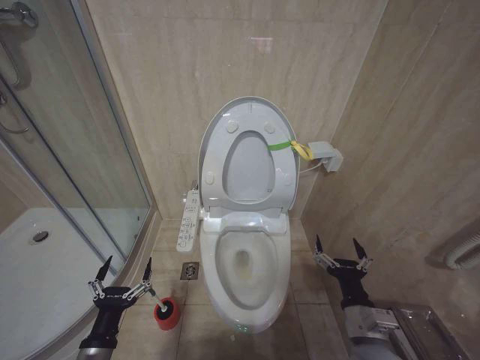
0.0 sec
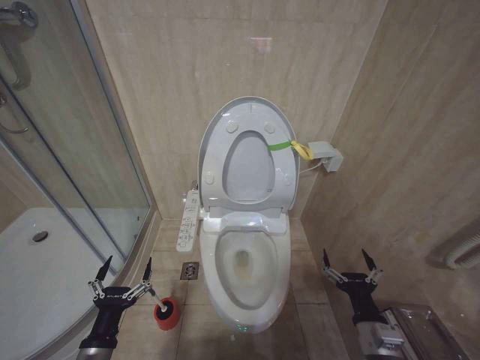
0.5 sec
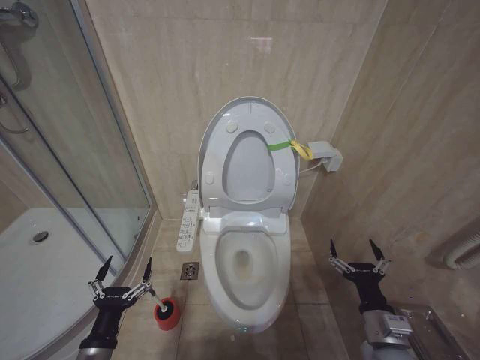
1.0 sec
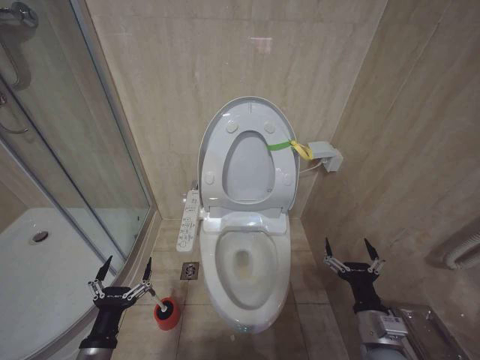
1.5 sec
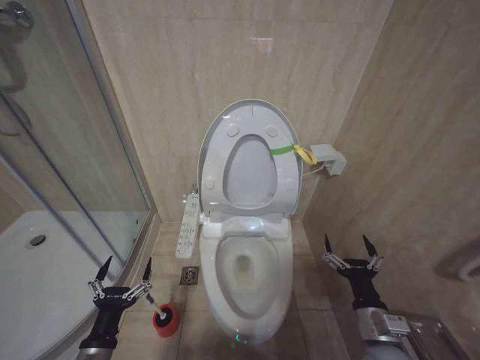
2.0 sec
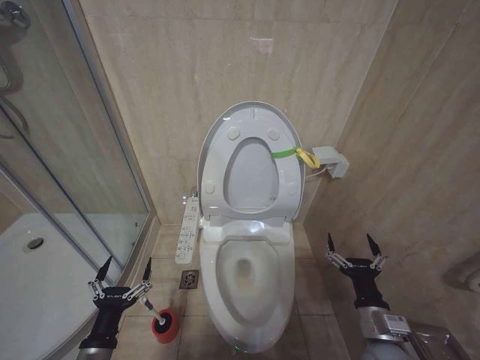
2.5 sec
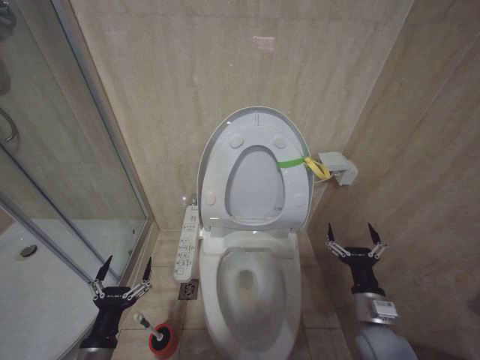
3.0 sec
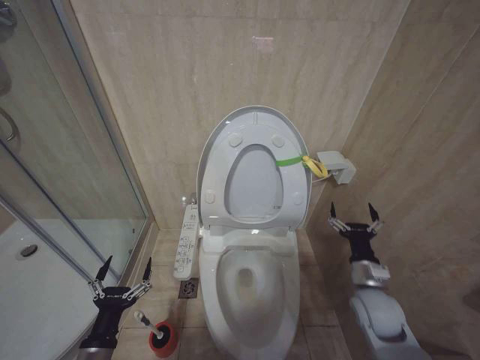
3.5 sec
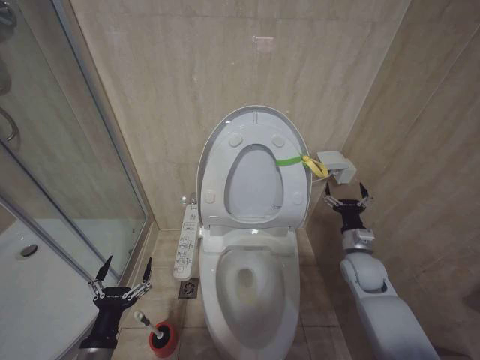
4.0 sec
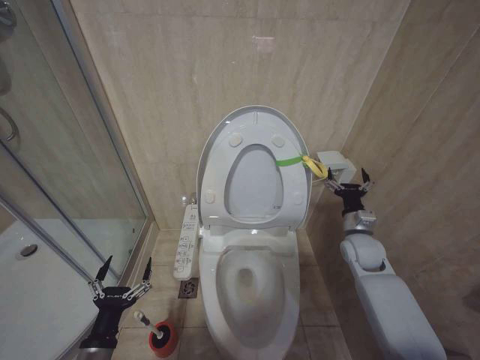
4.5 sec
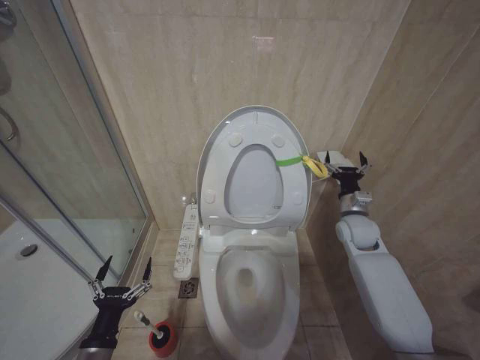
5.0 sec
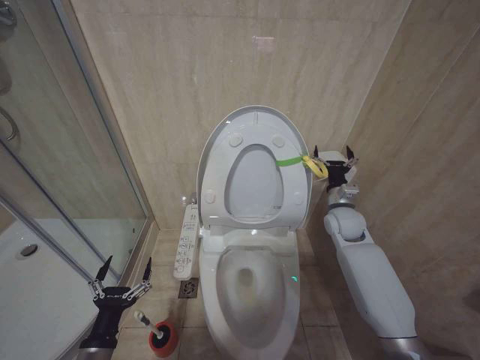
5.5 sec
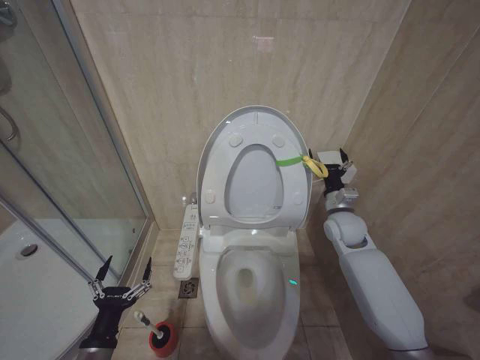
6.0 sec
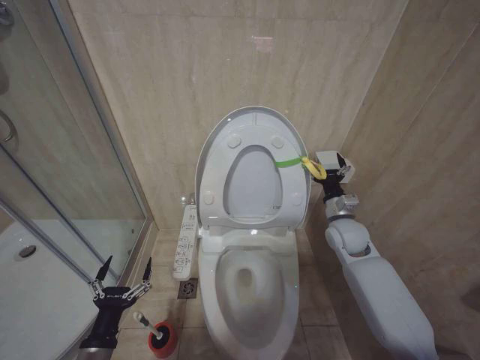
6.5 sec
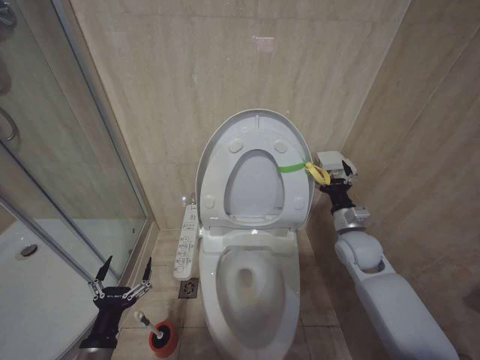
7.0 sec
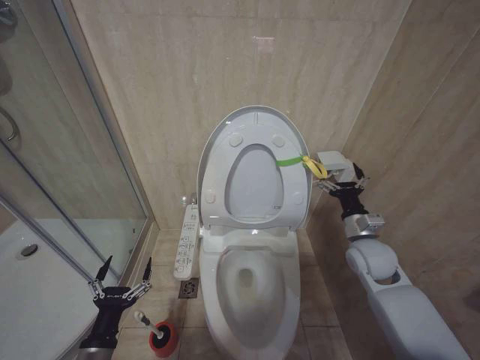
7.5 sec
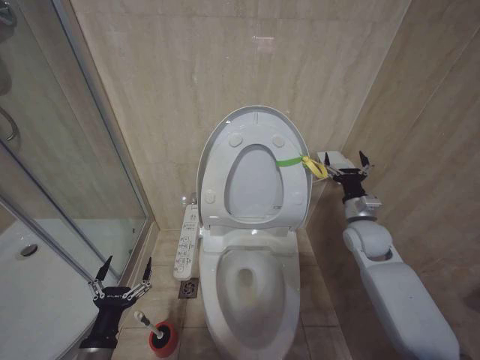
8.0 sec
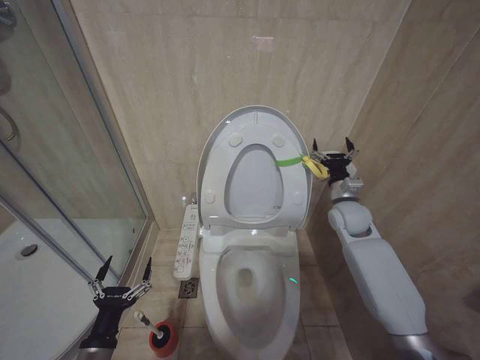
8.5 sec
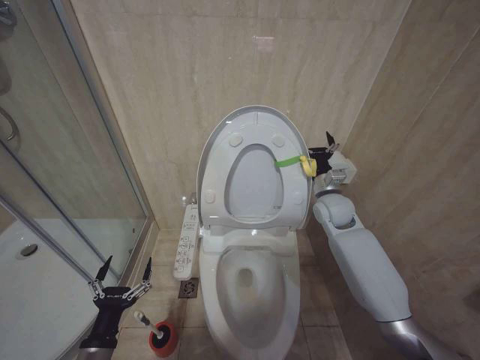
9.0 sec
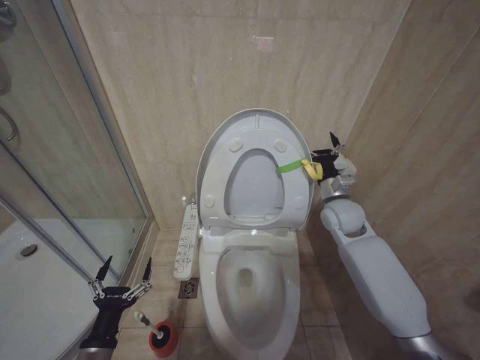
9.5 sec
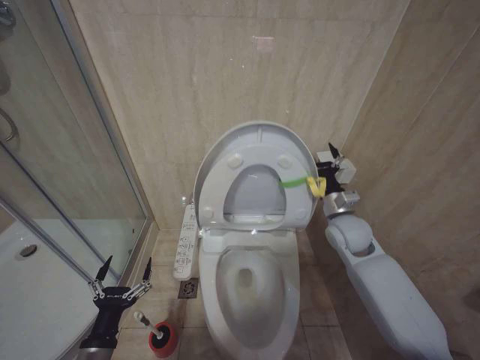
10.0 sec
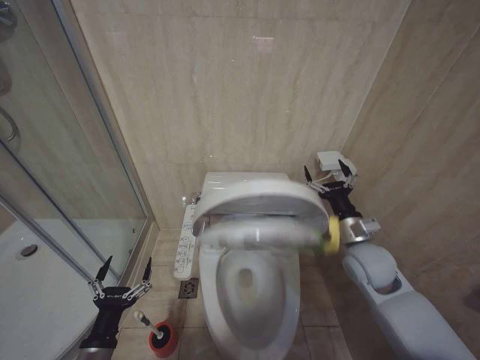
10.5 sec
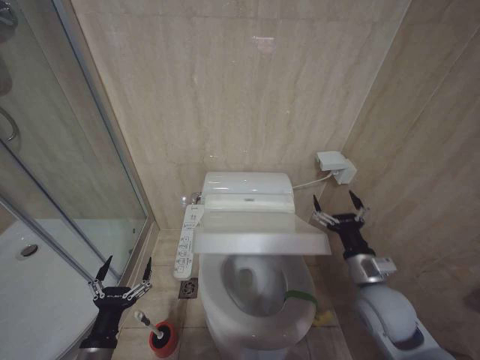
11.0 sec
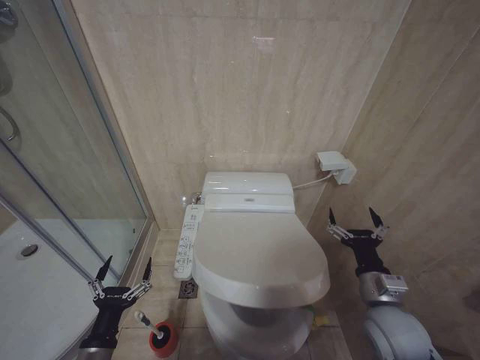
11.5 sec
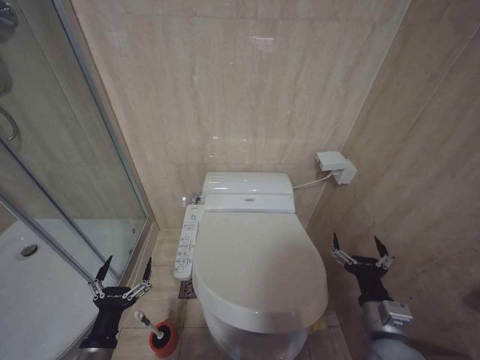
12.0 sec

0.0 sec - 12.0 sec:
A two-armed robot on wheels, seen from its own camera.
Task of the whole recording: Open the toilet lid, clean the toilet bowl with a toilet brush, close the toilet lid, and flush.
0.0 sec - 2.0 sec: The grippers make only small movements.
2.0 sec - 4.0 sec: The right gripper moves forward, approximately 20 cm.
4.0 sec - 6.0 sec: The right gripper goes some 15 cm forward and upward.
8.0 sec - 10.0 sec: The right gripper moves to the left, approximately 5 cm, and reaches some 10 cm forward, then returns.
10.0 sec - 12.0 sec: The right gripper goes roughly 25 cm backward and downward.

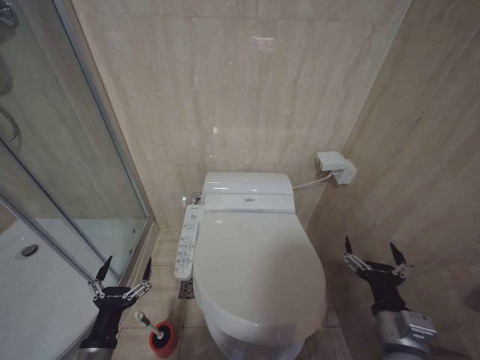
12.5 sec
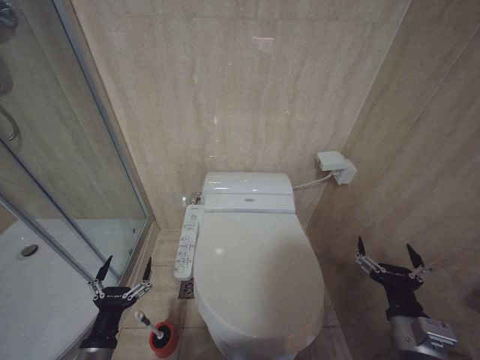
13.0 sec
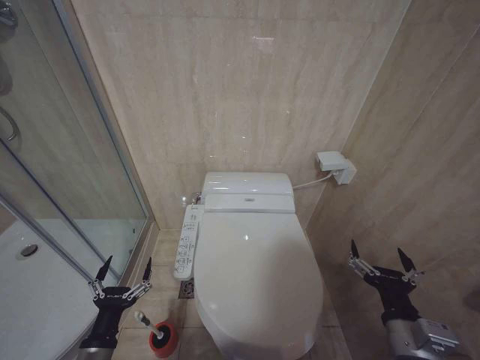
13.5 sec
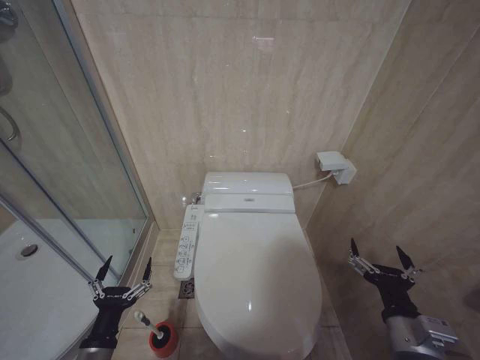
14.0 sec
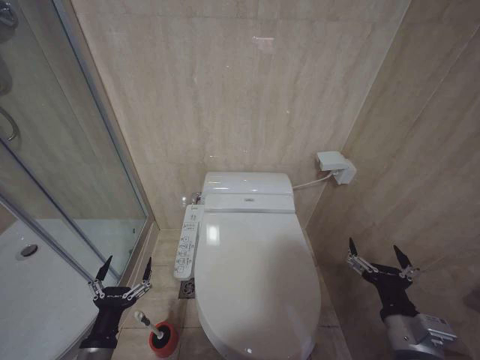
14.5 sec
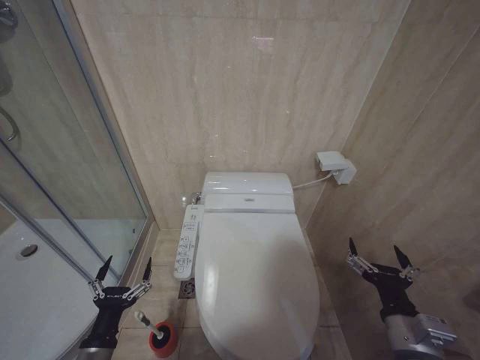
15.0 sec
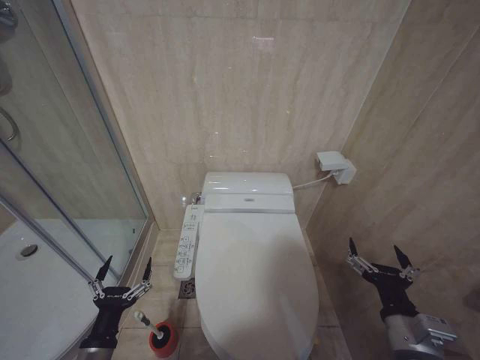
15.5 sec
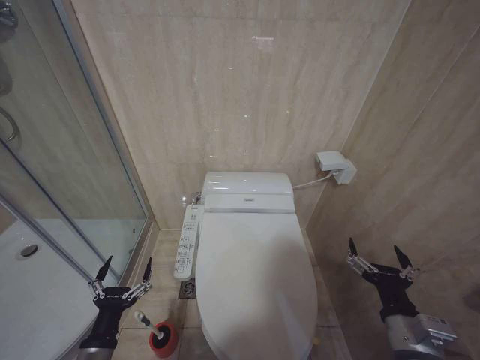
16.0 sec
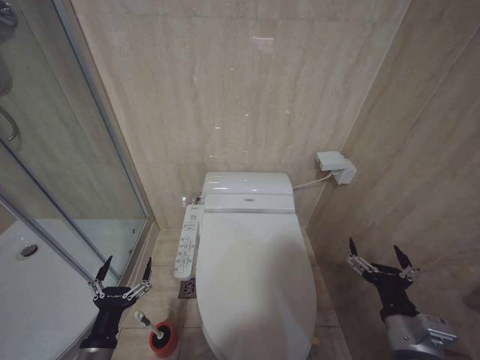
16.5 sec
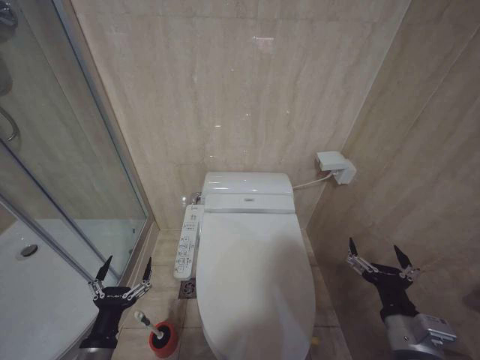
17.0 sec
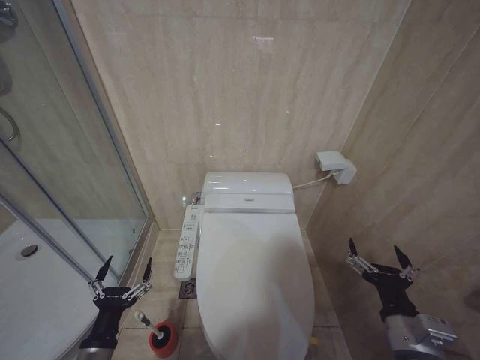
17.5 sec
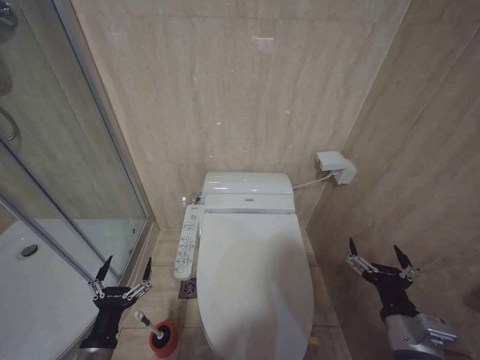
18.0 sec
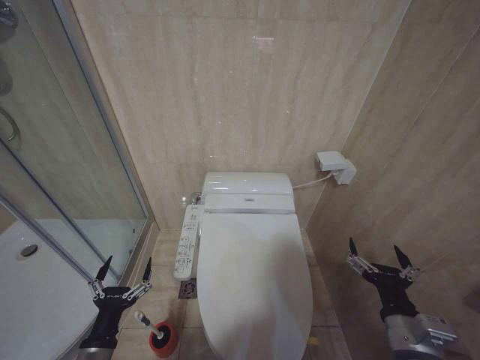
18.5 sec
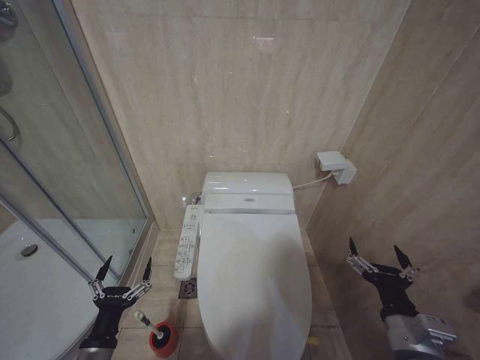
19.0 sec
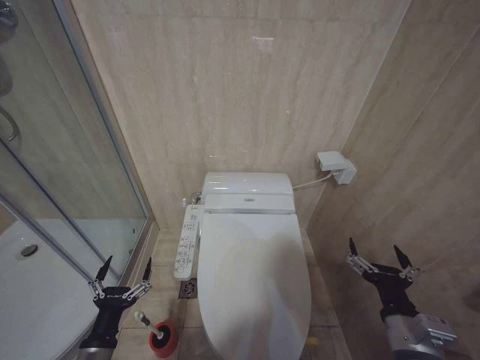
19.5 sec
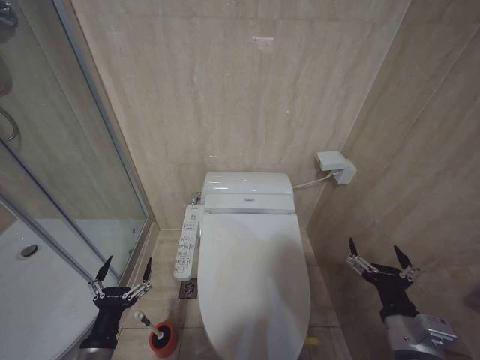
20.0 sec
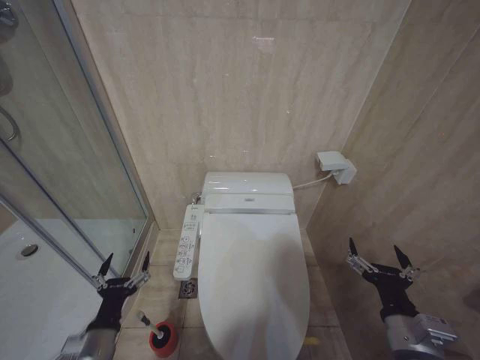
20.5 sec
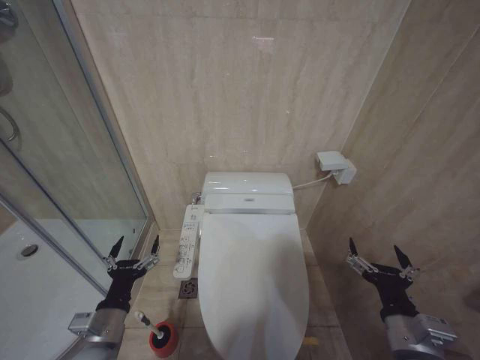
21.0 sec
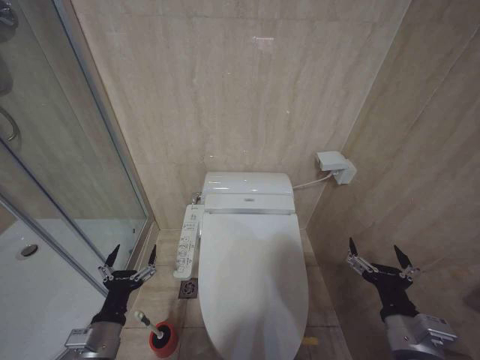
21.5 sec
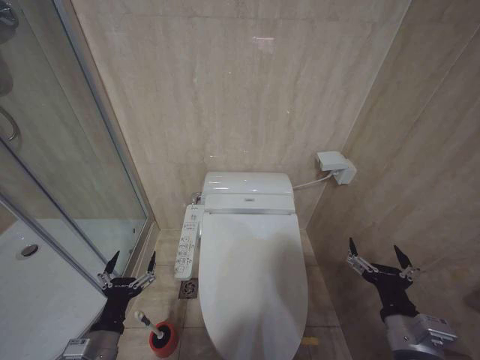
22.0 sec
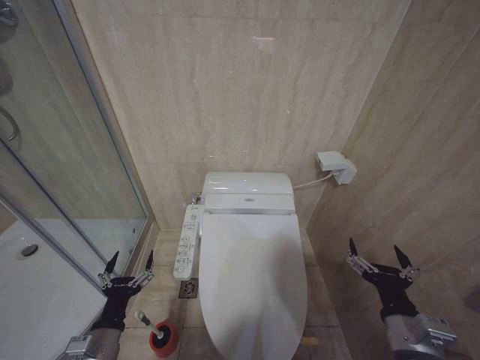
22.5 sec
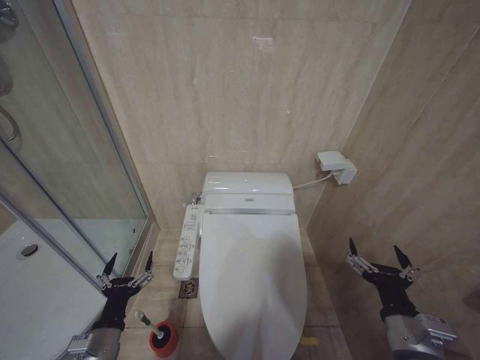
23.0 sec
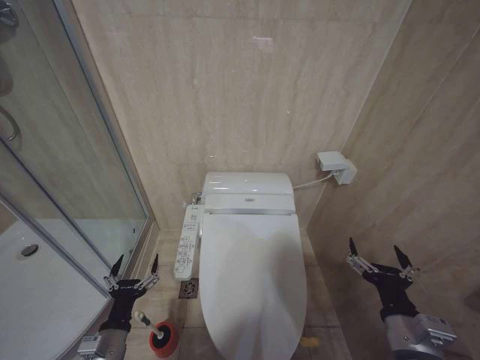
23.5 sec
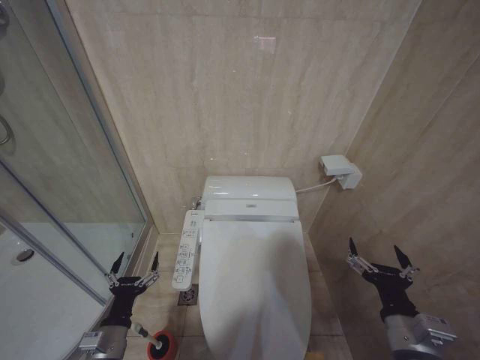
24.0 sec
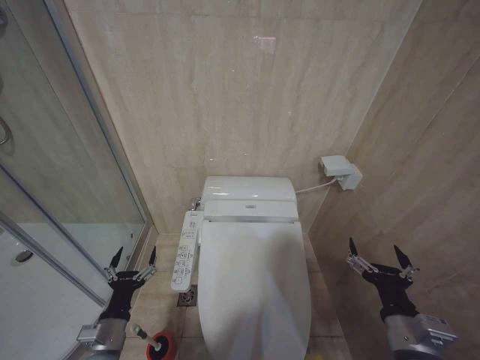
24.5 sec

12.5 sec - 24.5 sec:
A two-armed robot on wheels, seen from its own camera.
Task of the whole recording: Open the toilet lid, clean the toilet bowl with a toilet brush, close the toilet lid, and flush.
12.5 sec - 14.5 sec: The grippers stay close to where they were, moving slightly.
14.5 sec - 18.5 sec: The two grippers keep their place.
18.5 sec - 20.5 sec: The grippers move only a little.
22.5 sec - 24.5 sec: The grippers stay close to where they were, moving slightly.

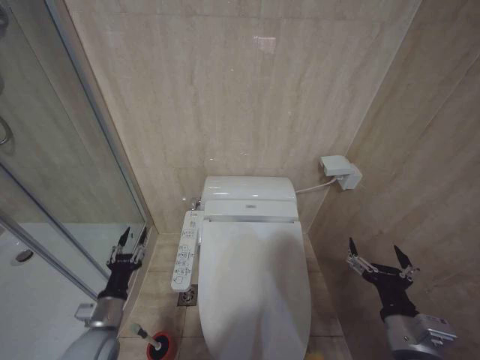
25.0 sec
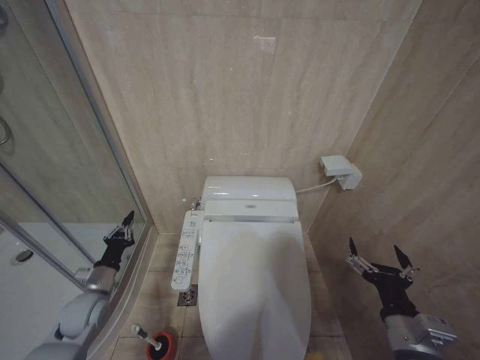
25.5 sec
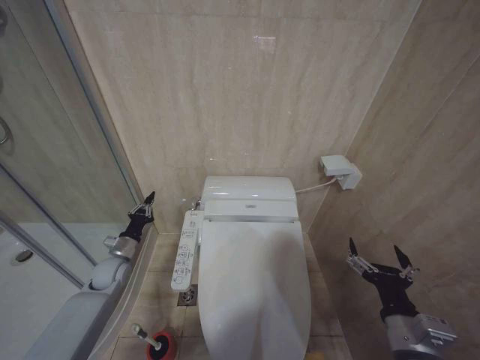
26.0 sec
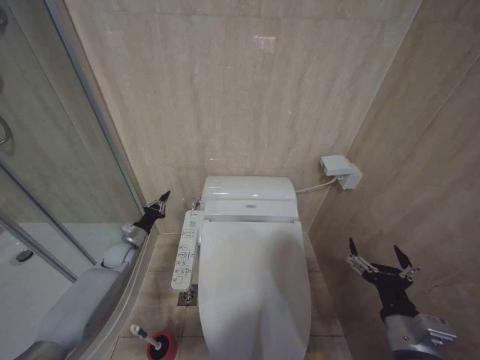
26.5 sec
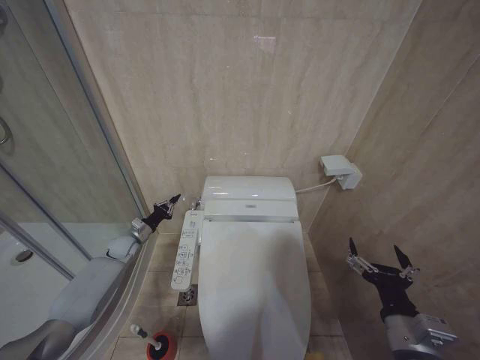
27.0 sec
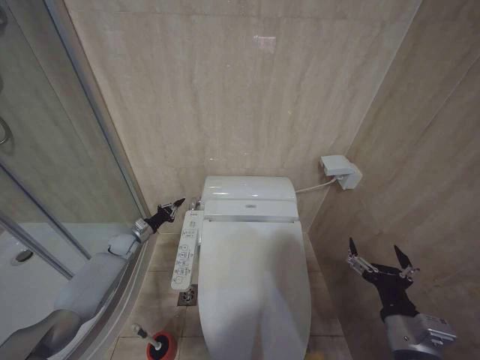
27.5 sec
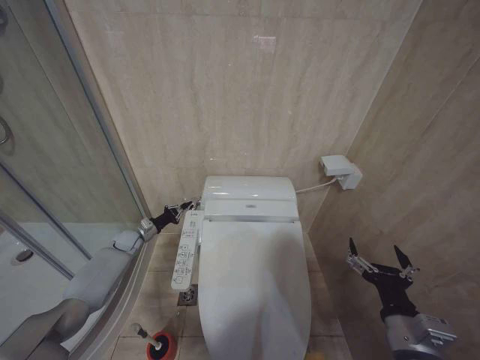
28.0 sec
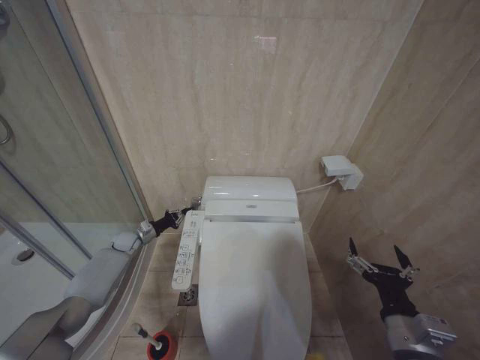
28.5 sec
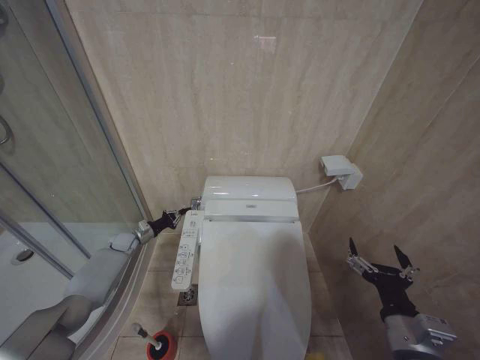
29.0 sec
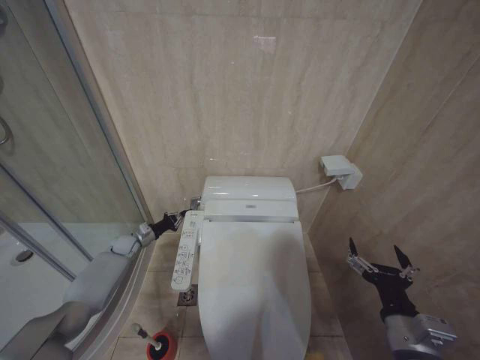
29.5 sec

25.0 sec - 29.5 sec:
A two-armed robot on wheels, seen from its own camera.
Task of the whole recording: Open the toilet lid, clean the toilet bowl with a toilet brush, close the toilet lid, and flush.
25.0 sec - 27.0 sec: The left gripper travels forward by approximately 30 cm, and closes.
